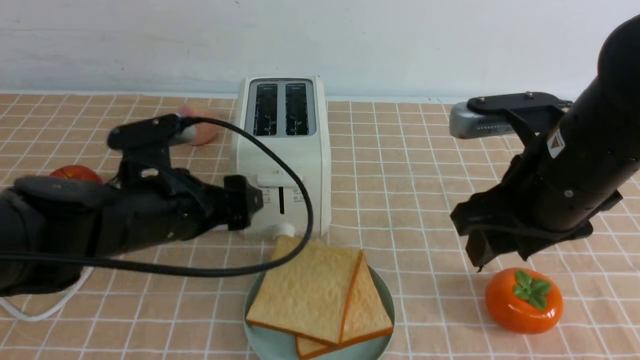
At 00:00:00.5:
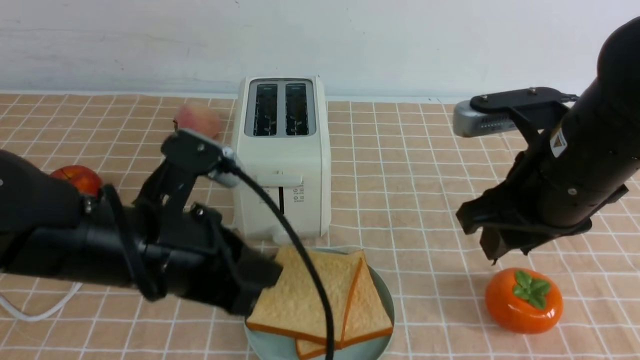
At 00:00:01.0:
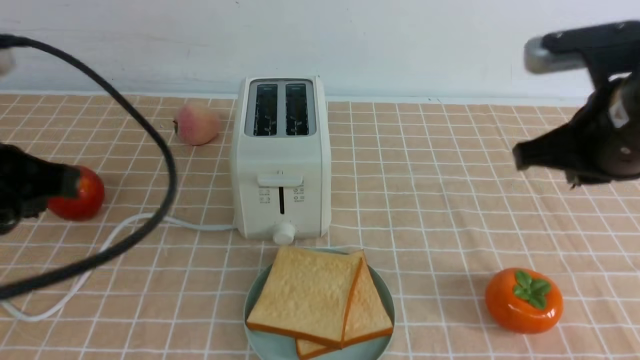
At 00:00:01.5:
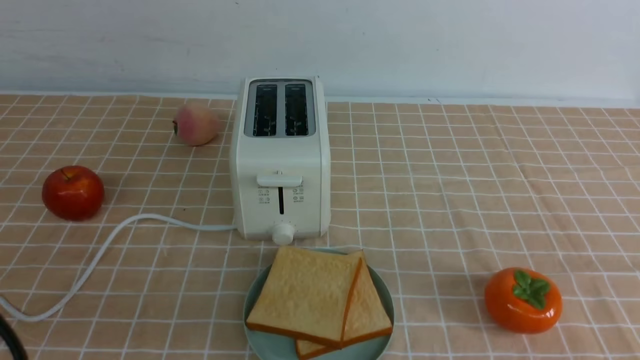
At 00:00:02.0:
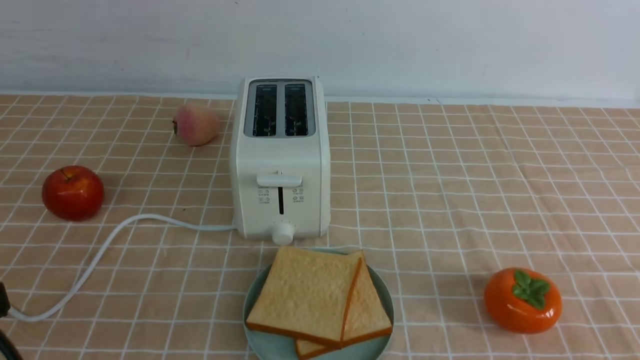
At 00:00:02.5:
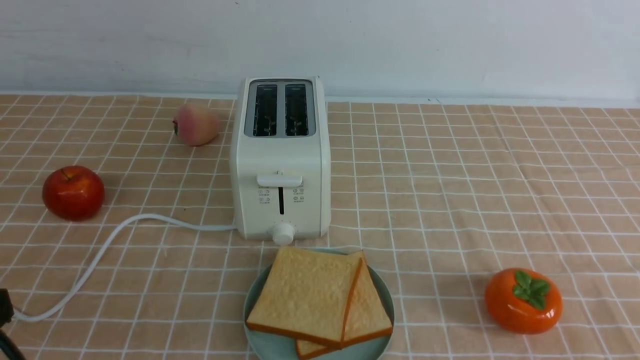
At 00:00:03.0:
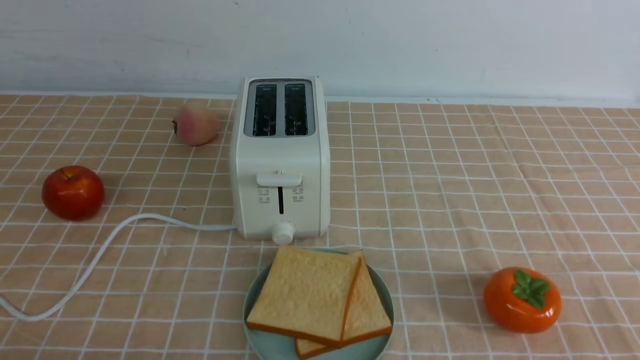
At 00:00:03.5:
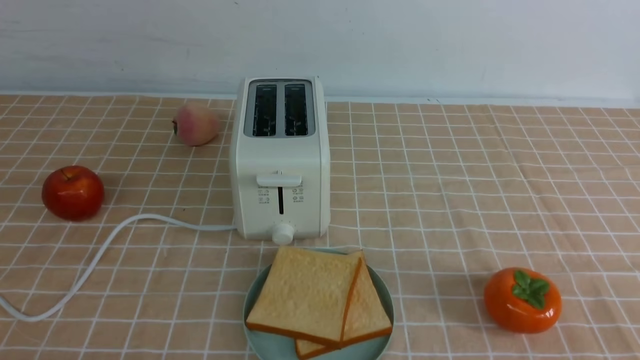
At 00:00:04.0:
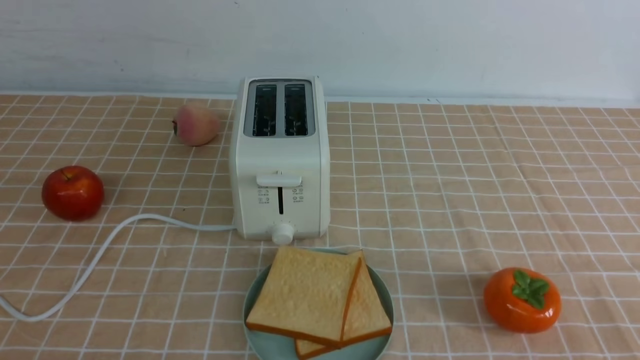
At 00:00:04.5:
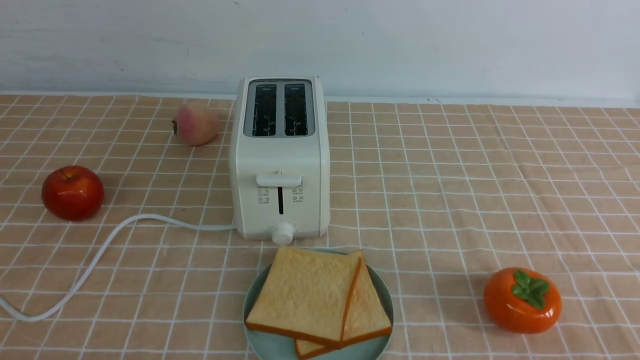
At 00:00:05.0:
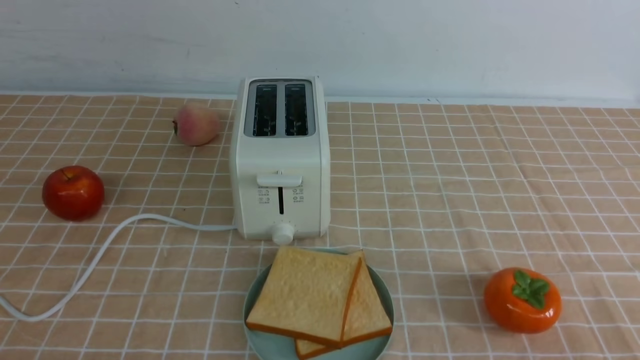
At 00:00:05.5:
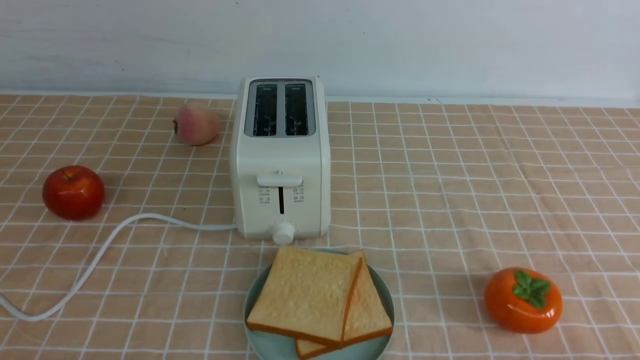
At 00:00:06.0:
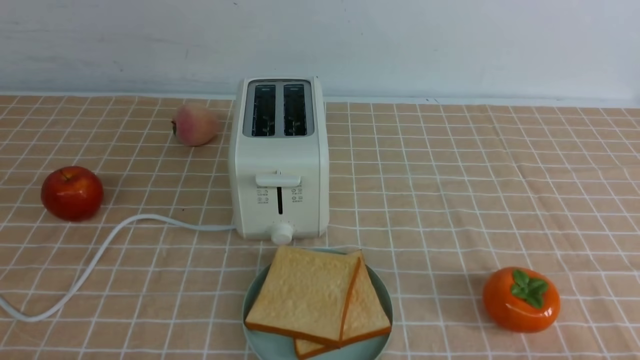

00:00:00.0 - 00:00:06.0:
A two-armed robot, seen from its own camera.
Task of the whole recording: take toasted bread from bread machine on light coffee tablecloth place on plate.
00:00:00.0 - 00:00:02.0: The right gripper is displaced backward and to the right by about 25 cm, and closes. Meanwhile the left gripper shifts approximately 25 cm backward and to the left, and closes up.
